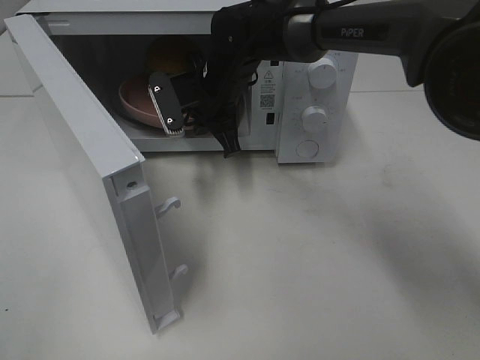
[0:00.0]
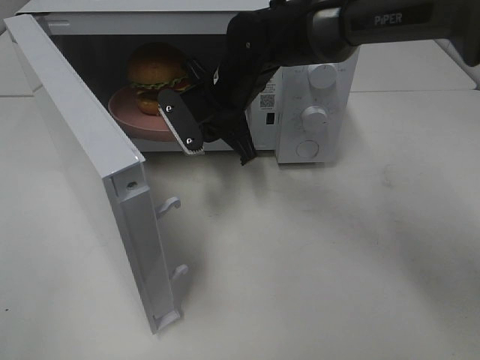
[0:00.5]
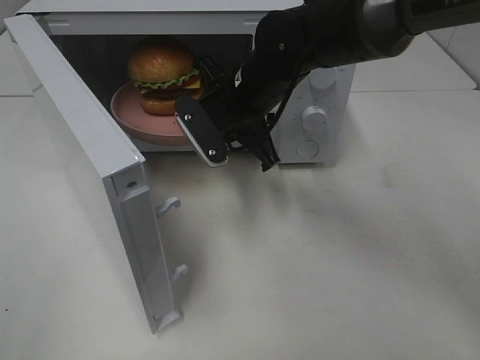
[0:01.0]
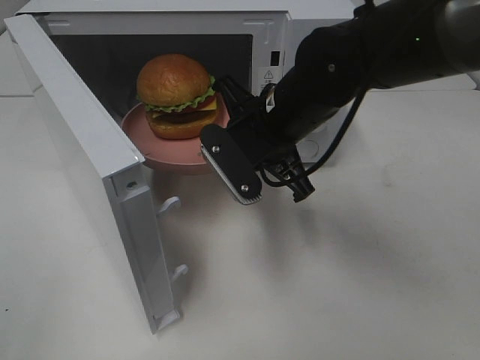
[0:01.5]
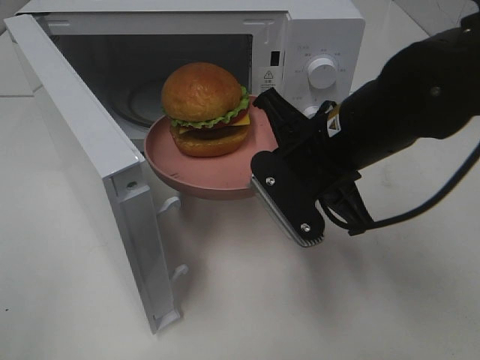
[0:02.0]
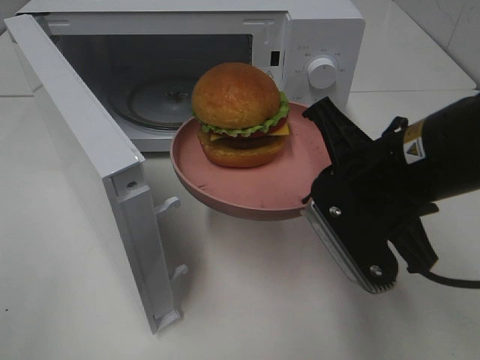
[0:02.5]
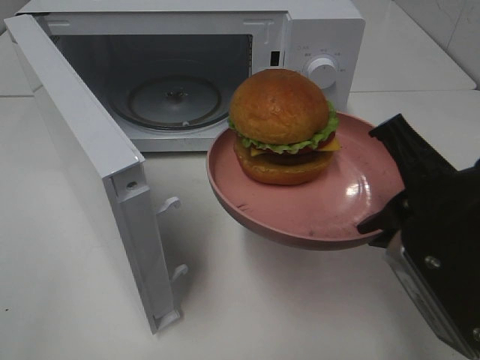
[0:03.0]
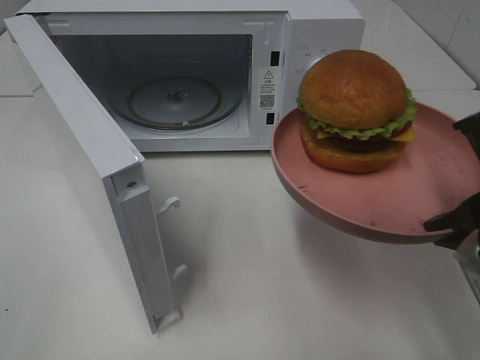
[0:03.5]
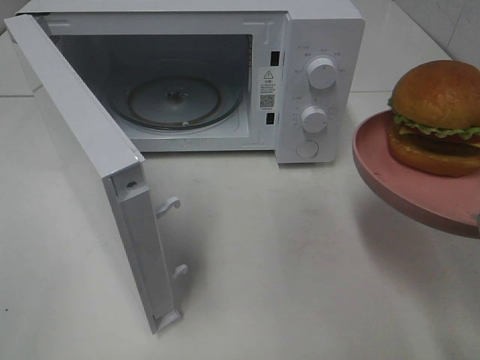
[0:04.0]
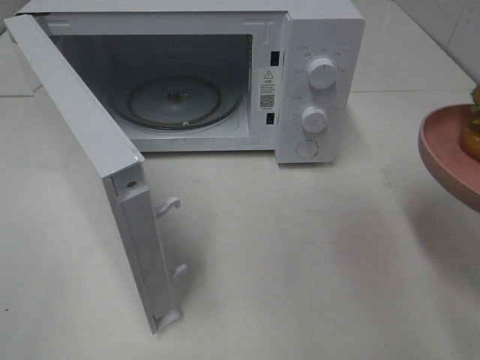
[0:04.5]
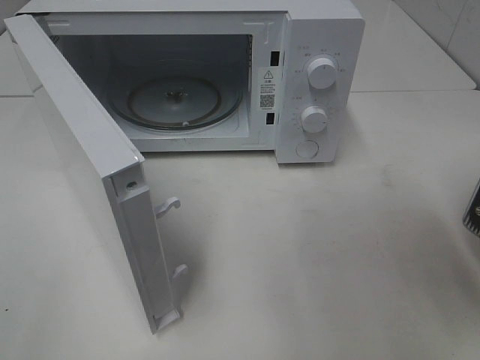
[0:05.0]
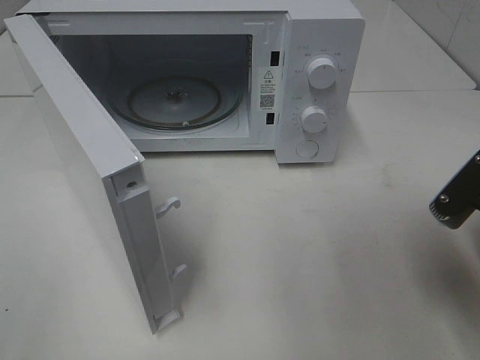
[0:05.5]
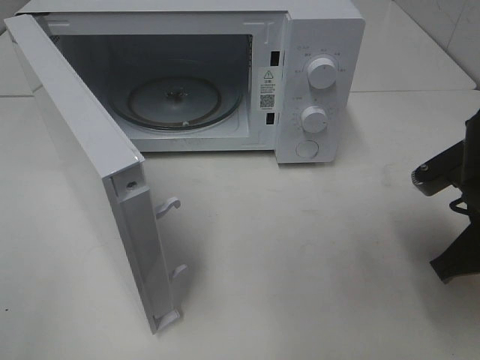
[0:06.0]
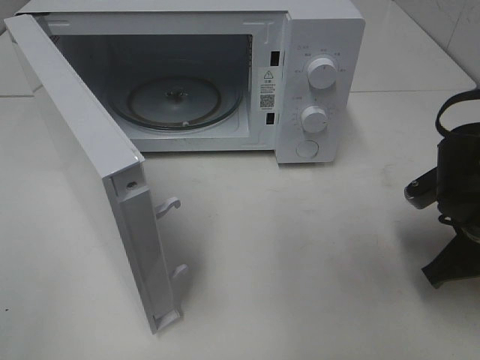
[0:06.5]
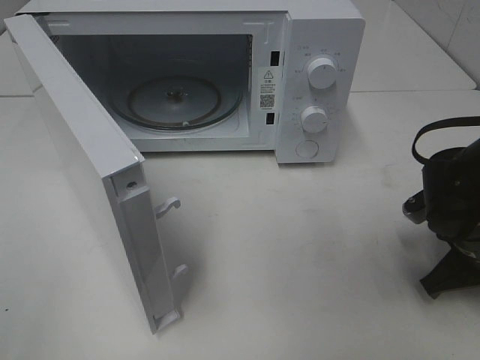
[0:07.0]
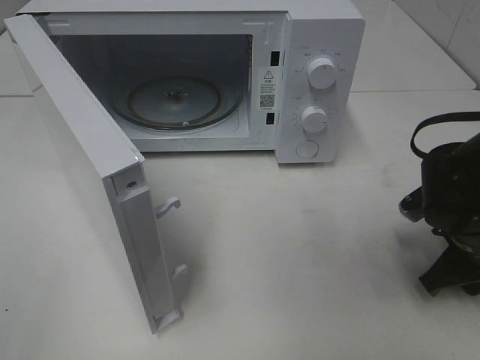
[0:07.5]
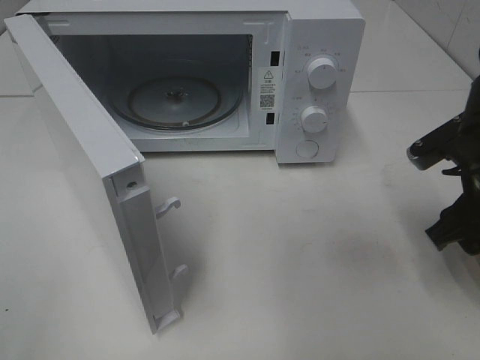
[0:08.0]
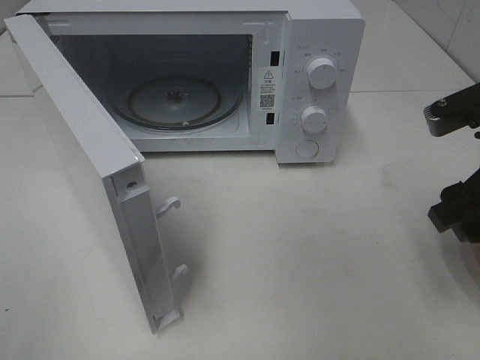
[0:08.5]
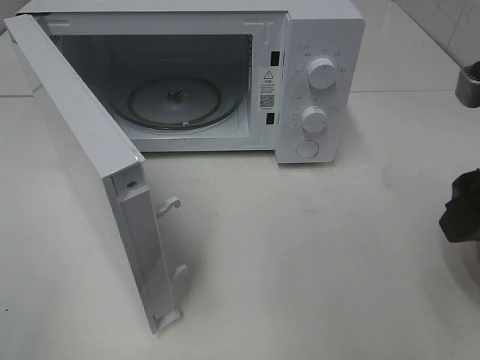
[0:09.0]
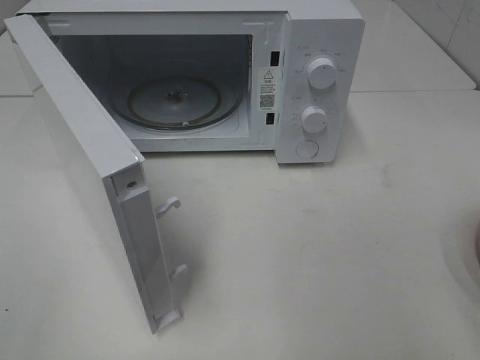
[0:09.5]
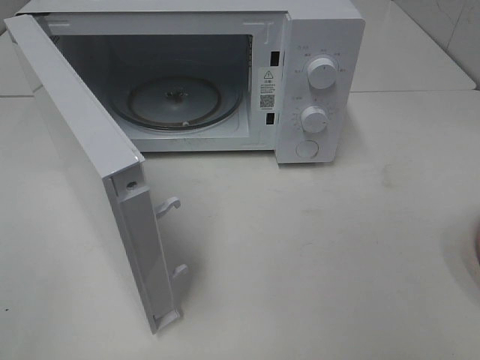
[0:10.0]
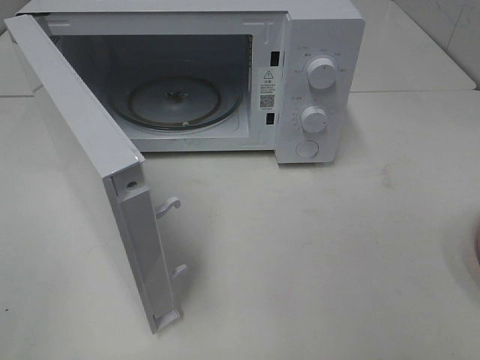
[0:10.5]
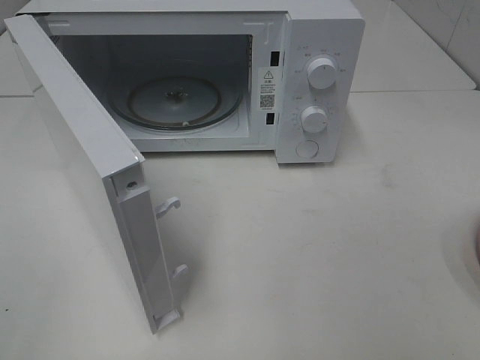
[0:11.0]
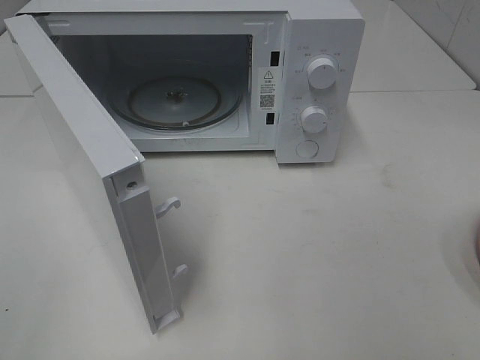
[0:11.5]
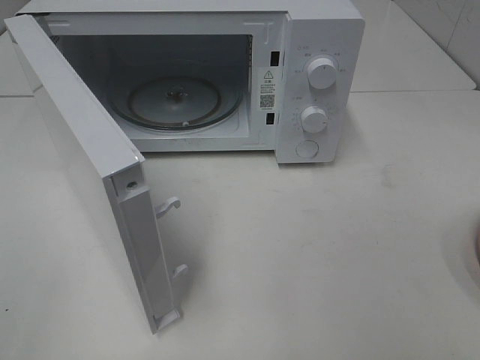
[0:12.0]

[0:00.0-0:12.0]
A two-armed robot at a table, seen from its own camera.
Task of the whole recording: Heat the burger.
Step, 0:00.0 to 0:07.5: Right hand: place the plate on the table.
0:00.0 to 0:02.0: The right gripper is displaced backward and to the right by about 20 cm.
0:02.0 to 0:04.0: The right gripper is displaced to the right and backward by some 20 cm.
0:04.0 to 0:06.0: The right gripper shifts about 10 cm downward and forward.
0:06.0 to 0:08.0: The right gripper moves roughly 5 cm downward and comes back, and opens.
0:08.0 to 0:10.0: The right gripper goes about 25 cm backward and upward.

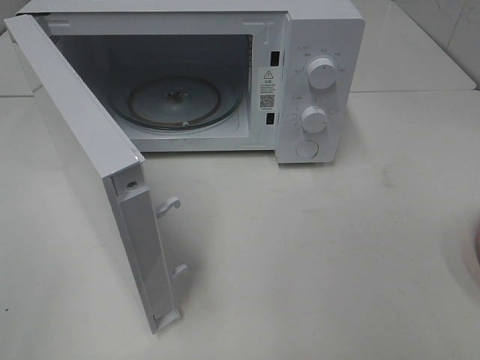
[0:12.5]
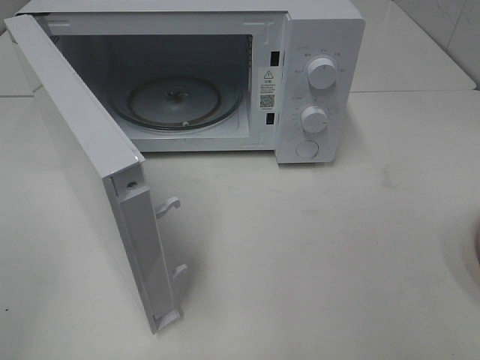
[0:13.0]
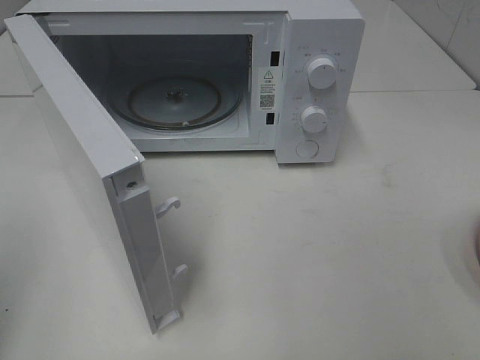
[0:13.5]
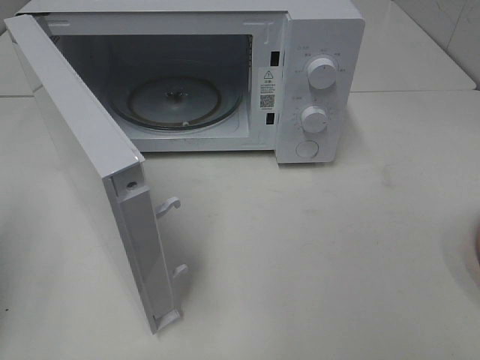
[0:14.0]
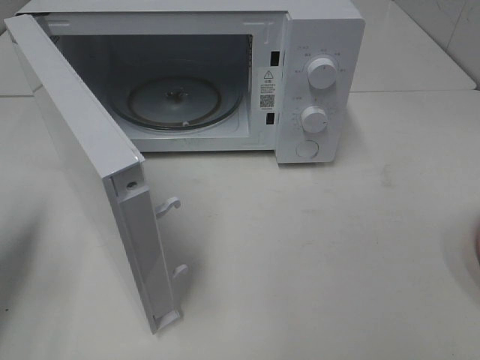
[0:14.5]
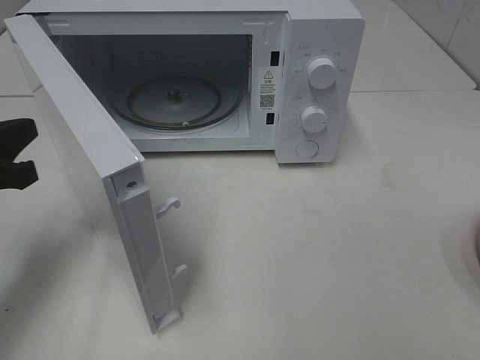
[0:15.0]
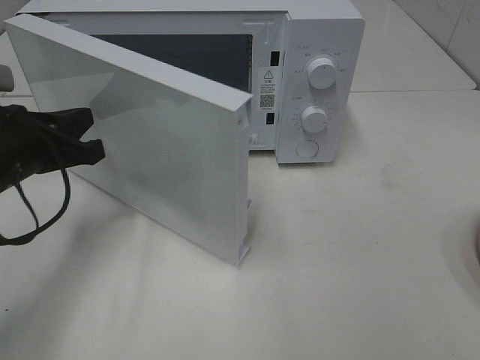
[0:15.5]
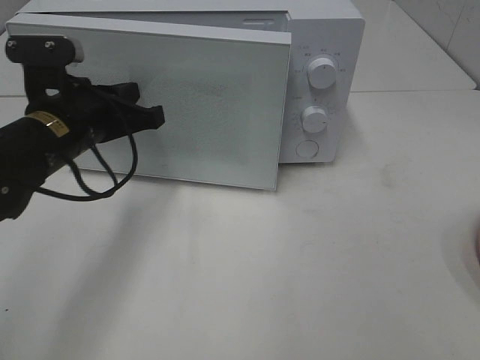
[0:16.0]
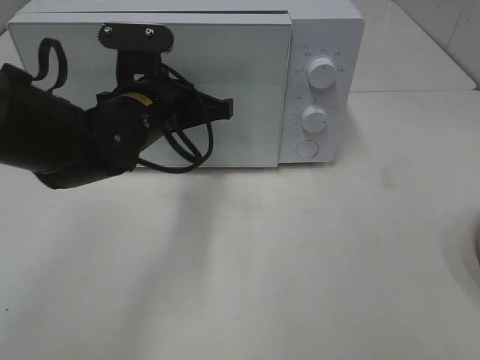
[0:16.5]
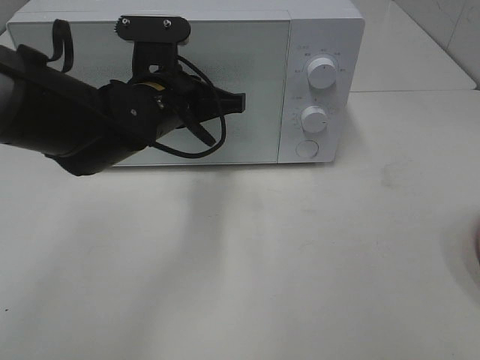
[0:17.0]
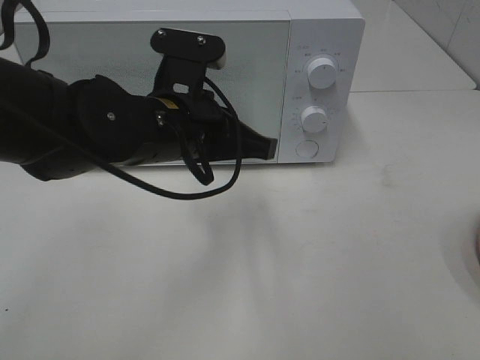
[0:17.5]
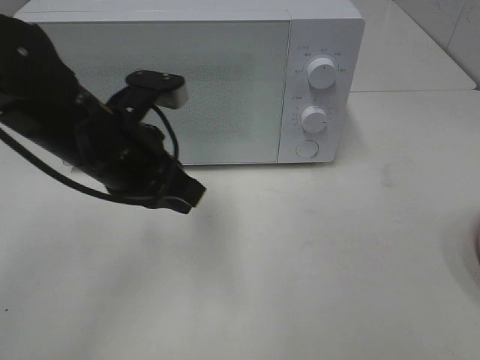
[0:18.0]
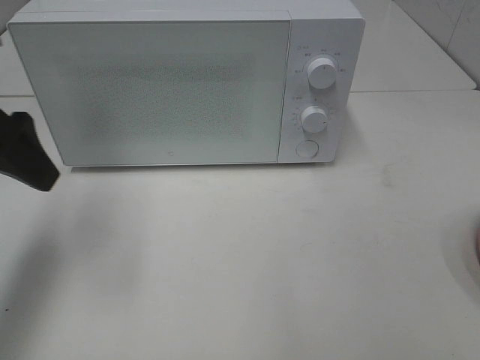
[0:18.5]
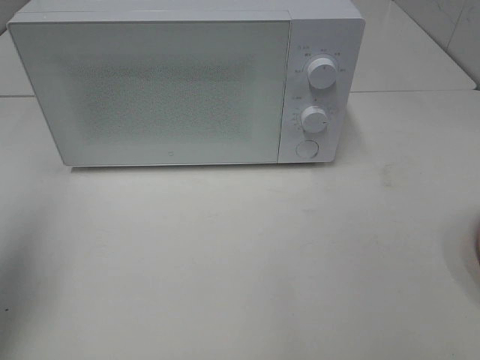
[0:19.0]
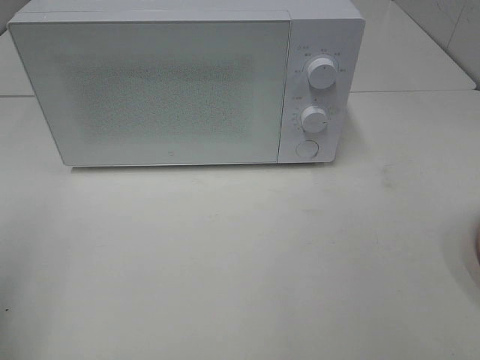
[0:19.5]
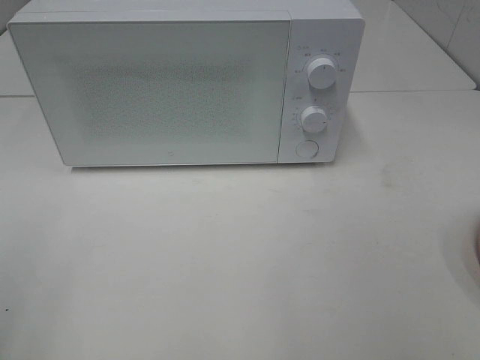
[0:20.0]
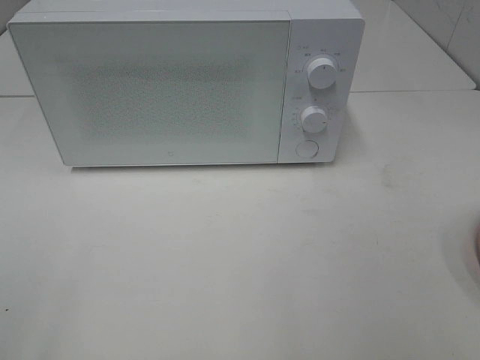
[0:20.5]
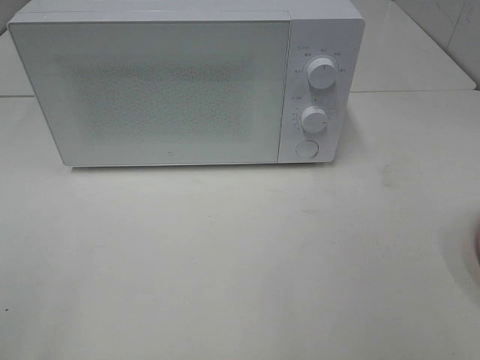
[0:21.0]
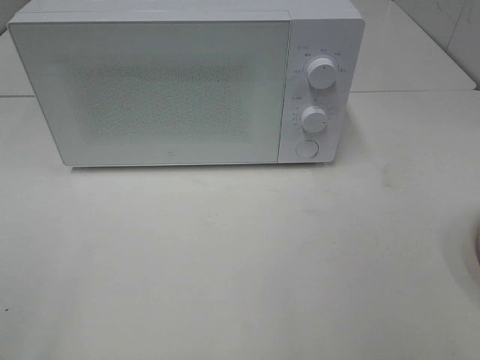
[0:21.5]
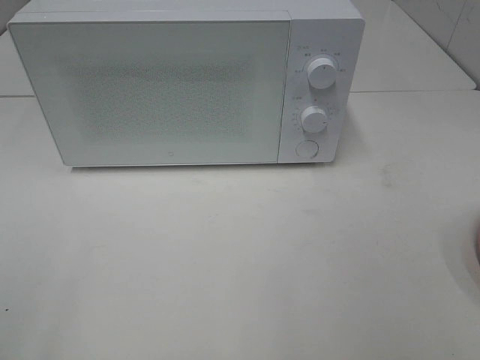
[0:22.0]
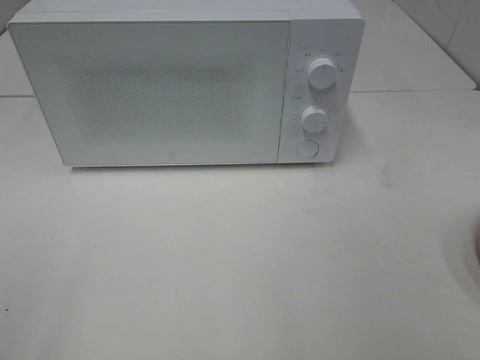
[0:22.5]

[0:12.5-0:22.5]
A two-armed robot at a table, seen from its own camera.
Task of the whole recording: Heat the burger.
Step, 0:12.5 to 0:17.5: Left hand: close the microwave door.
0:12.5 to 0:14.5: The left gripper moves forward, about 20 cm, and closes.
0:14.5 to 0:16.5: The left gripper is displaced to the right and forward by some 25 cm.
0:16.5 to 0:18.5: The left gripper goes about 20 cm to the left, upward and backward, and opens up.
0:18.5 to 0:20.5: The left gripper shifts approximately 25 cm backward.
0:20.5 to 0:22.5: The two grippers keep their place.

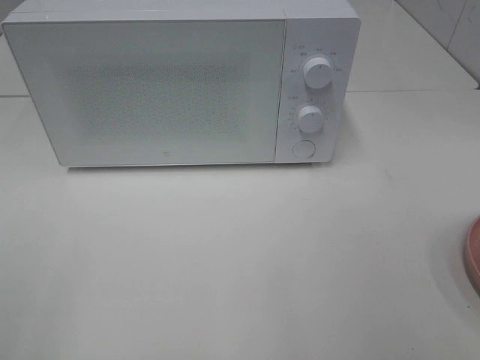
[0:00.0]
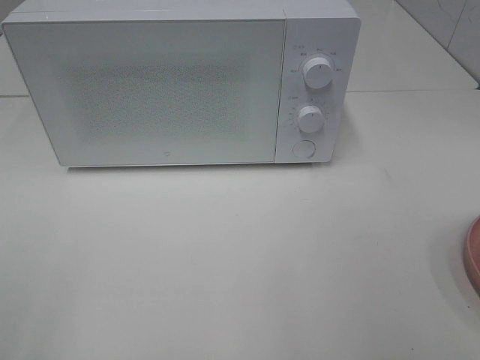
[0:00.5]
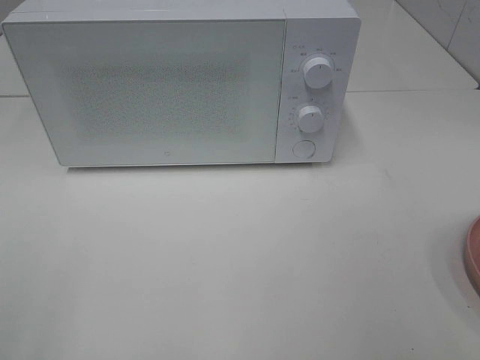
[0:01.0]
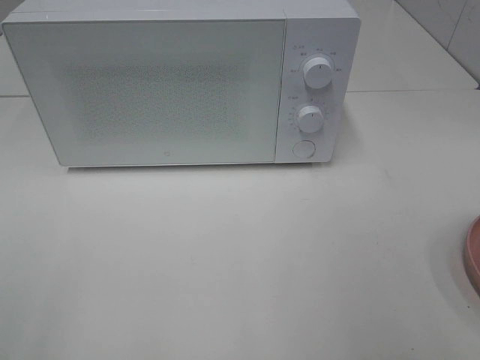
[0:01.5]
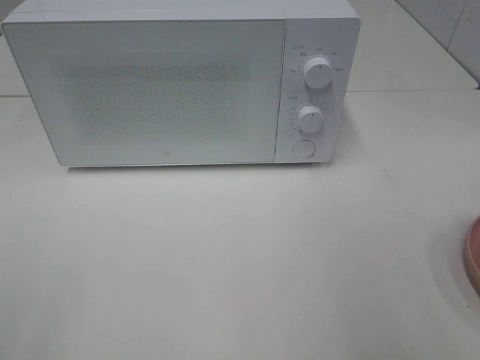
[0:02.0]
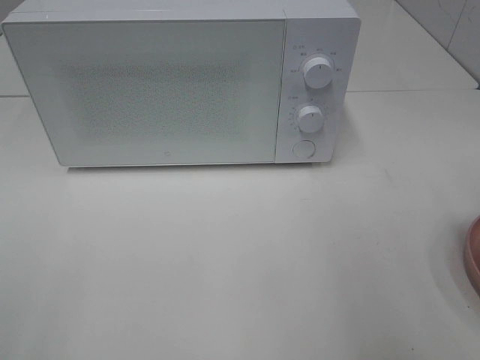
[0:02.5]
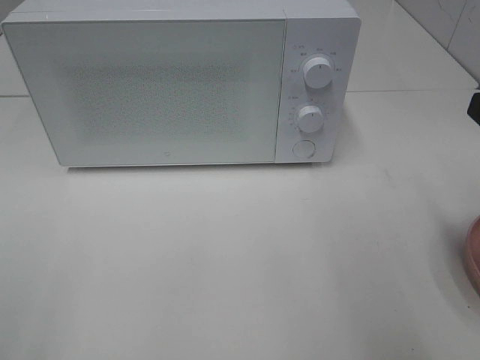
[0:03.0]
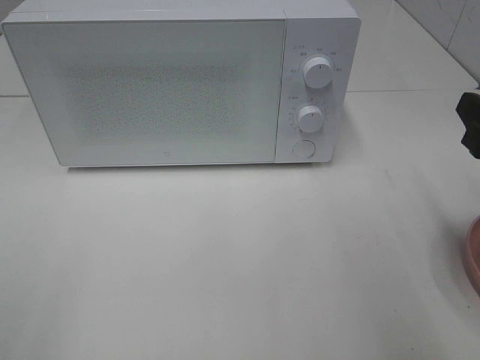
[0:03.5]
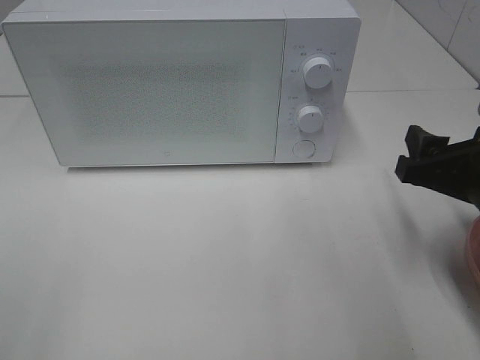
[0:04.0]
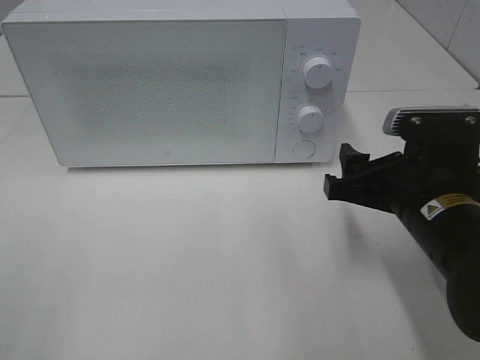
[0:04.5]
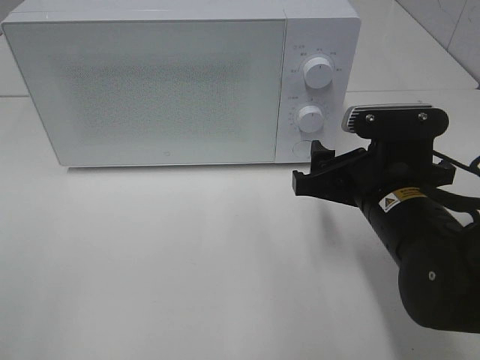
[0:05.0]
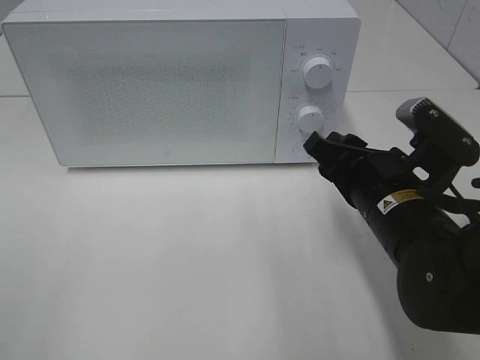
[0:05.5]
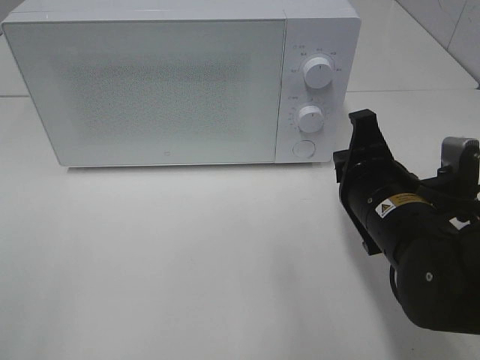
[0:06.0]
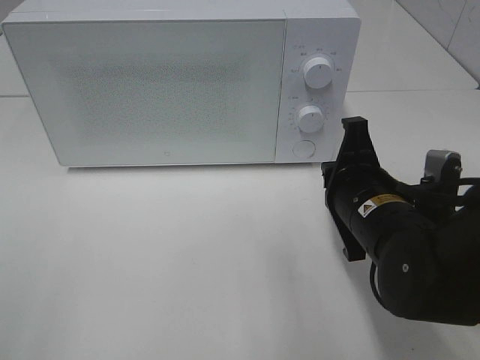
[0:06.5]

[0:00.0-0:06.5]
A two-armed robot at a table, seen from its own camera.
Task of the whole recording: Heat the burger.
0:02.0 to 0:04.5: The right gripper goes approximately 20 cm downward, to the left and forward.
0:04.5 to 0:06.5: The right gripper closes up.
